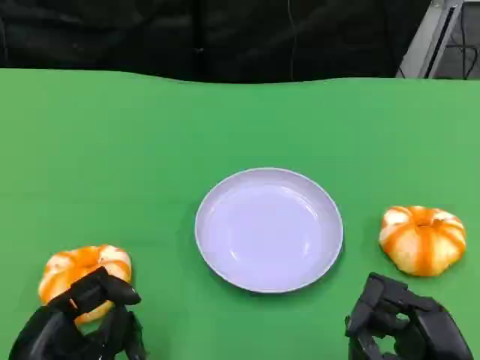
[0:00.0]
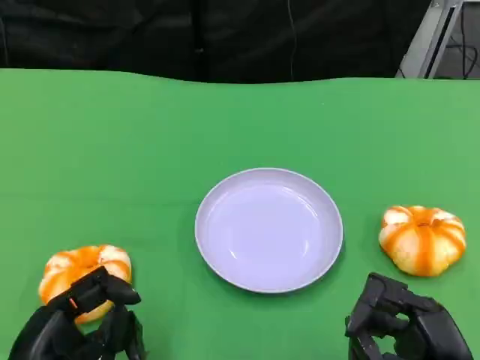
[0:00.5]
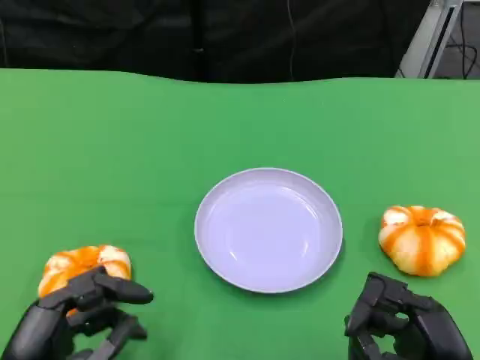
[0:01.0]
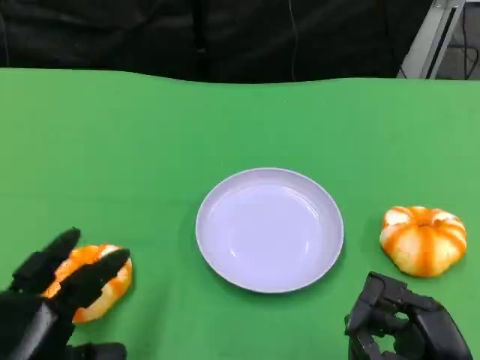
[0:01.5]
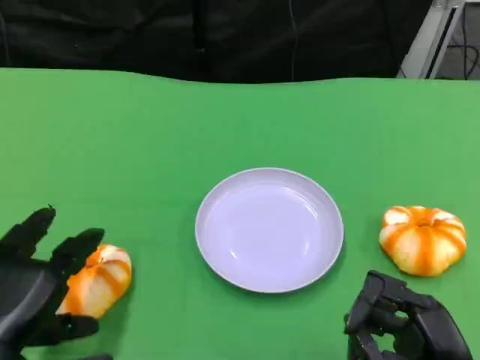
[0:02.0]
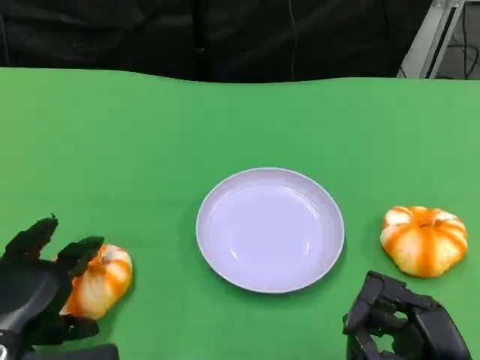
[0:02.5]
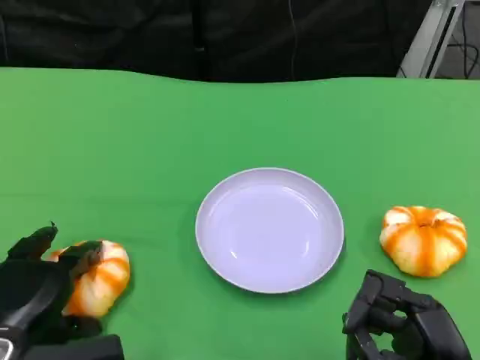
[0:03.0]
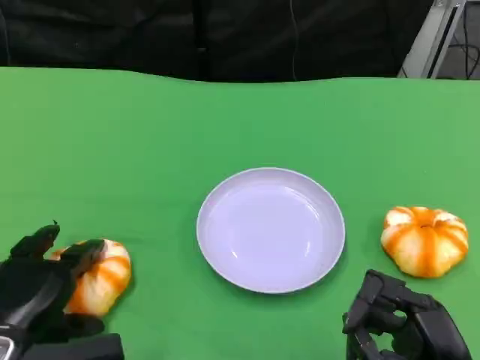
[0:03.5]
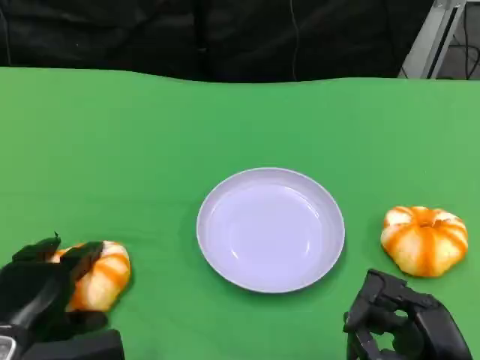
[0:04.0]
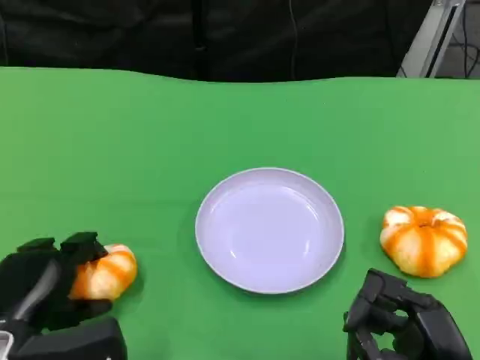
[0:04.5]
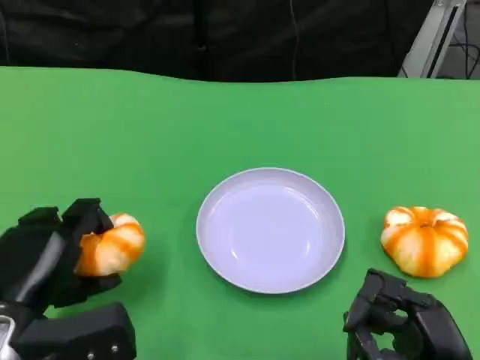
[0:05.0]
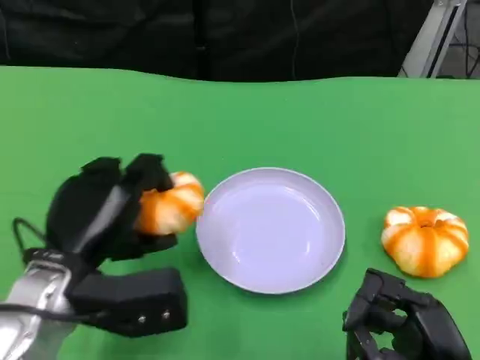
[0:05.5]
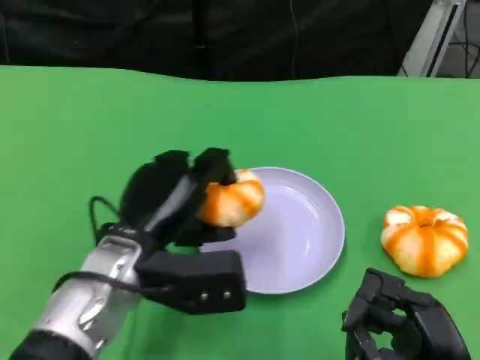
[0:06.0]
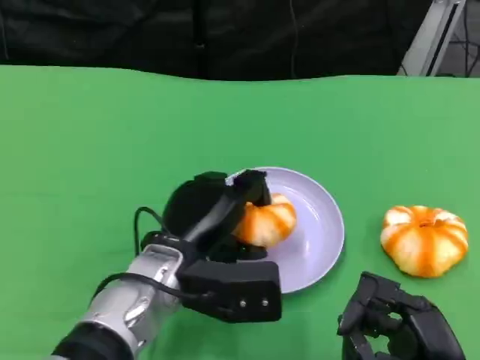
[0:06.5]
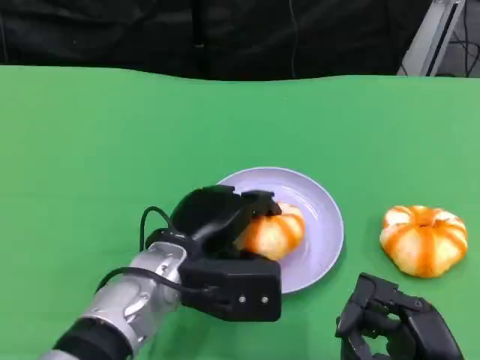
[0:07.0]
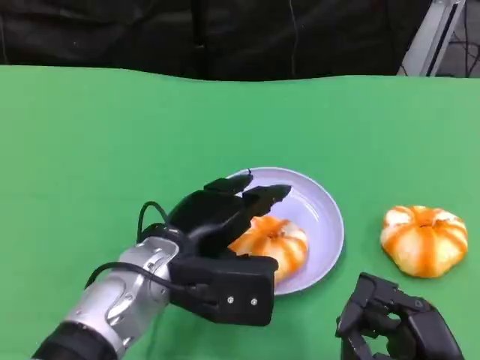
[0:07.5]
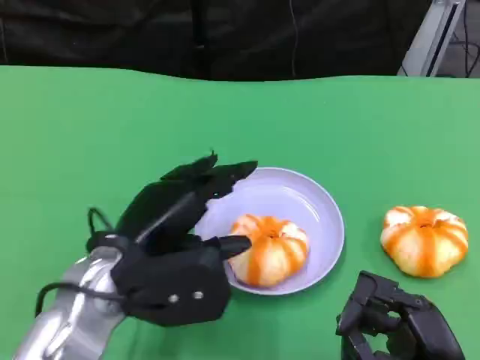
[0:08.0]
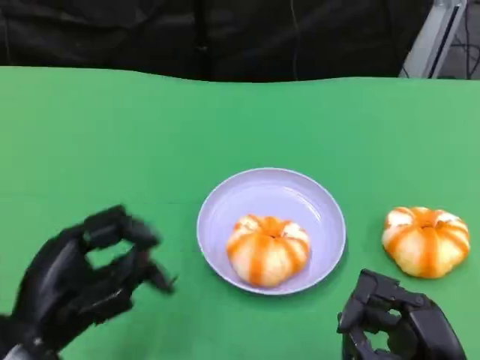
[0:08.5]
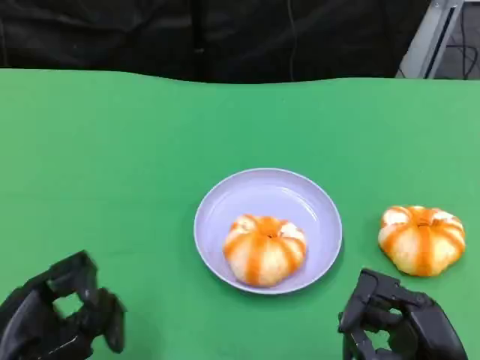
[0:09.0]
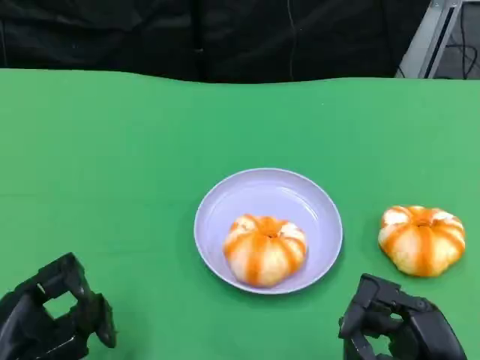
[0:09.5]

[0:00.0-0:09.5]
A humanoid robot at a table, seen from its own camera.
Task of the whole recording: Grasp the bread from the table and place it into the plate.
0:02.0 to 0:04.0: The hands make only small movements.
0:04.0 to 0:05.5: The left hand shifts roughly 10 cm upward and to the right.
0:05.5 to 0:07.5: The left hand heads to the right, covering about 10 cm.
0:07.5 to 0:09.5: The left hand goes roughly 20 cm to the left and backward.

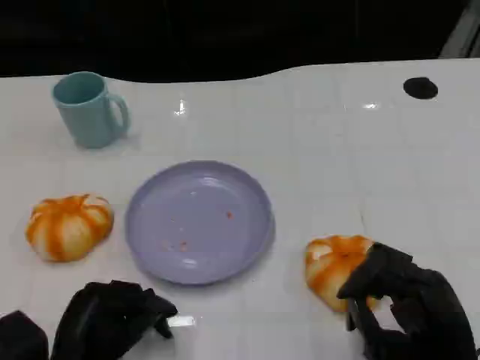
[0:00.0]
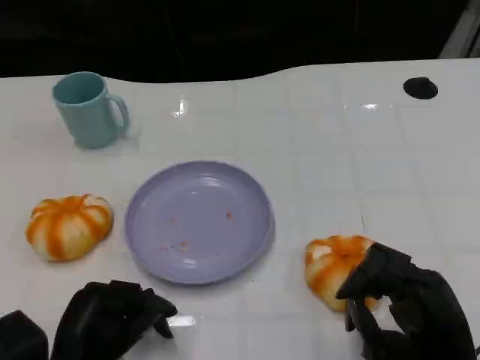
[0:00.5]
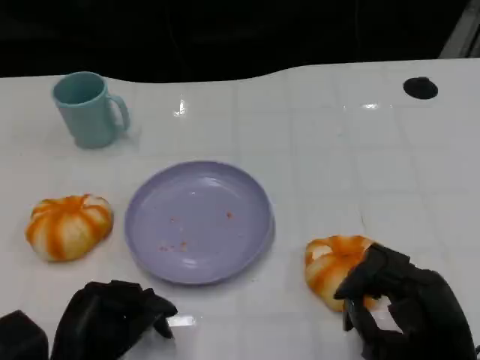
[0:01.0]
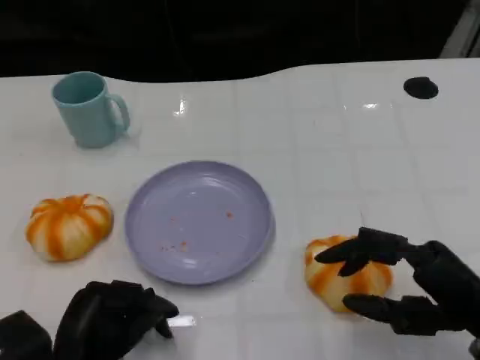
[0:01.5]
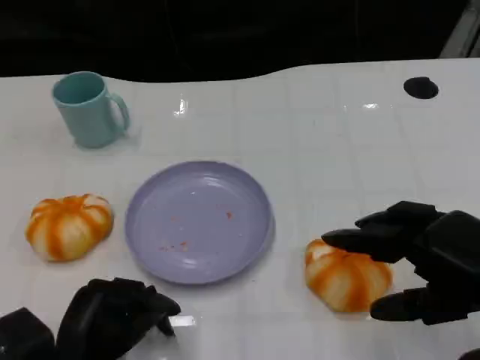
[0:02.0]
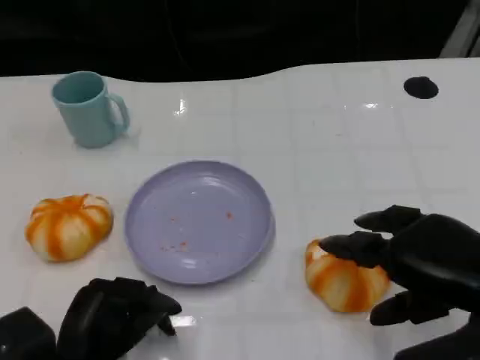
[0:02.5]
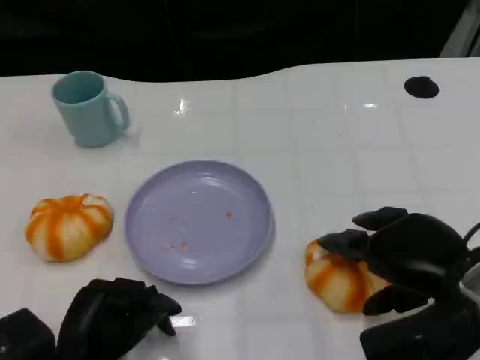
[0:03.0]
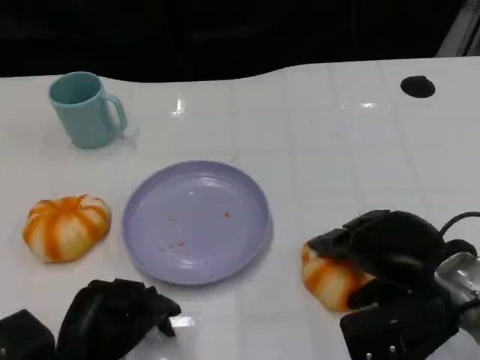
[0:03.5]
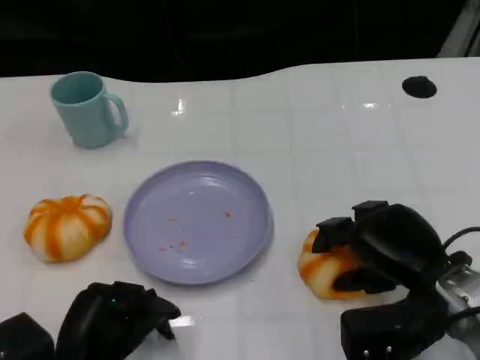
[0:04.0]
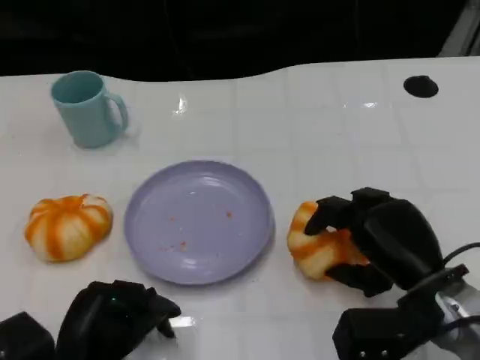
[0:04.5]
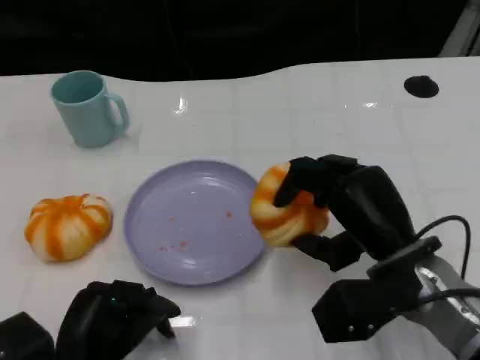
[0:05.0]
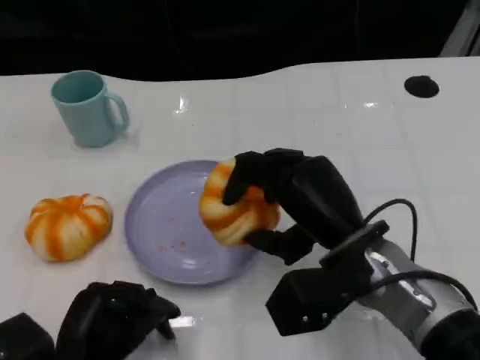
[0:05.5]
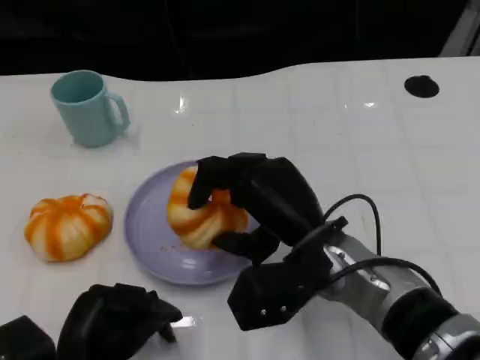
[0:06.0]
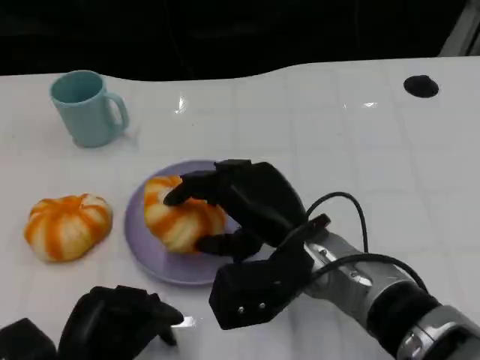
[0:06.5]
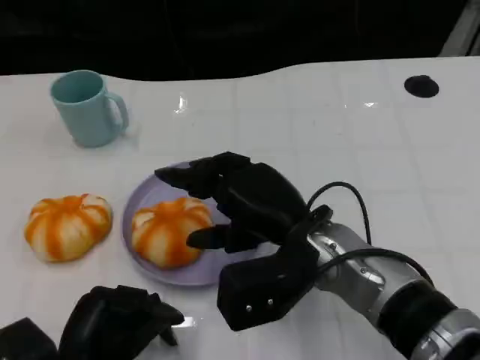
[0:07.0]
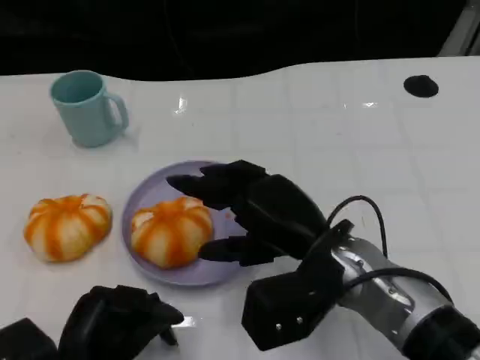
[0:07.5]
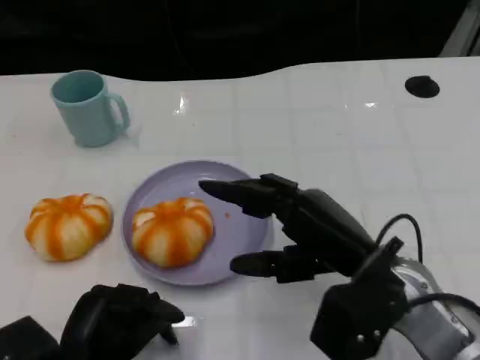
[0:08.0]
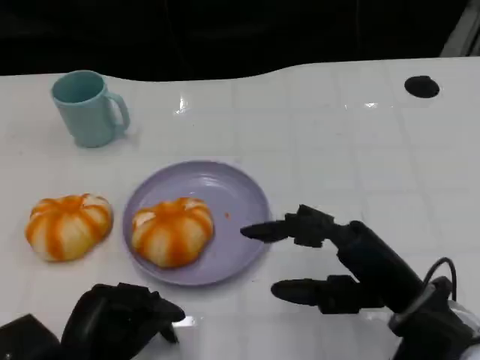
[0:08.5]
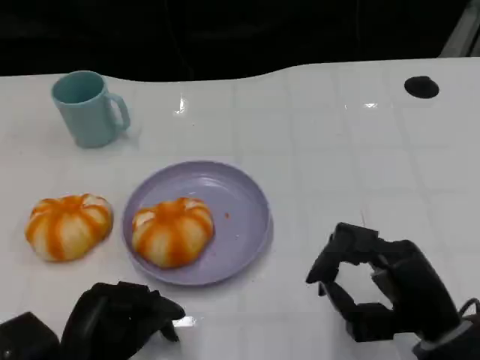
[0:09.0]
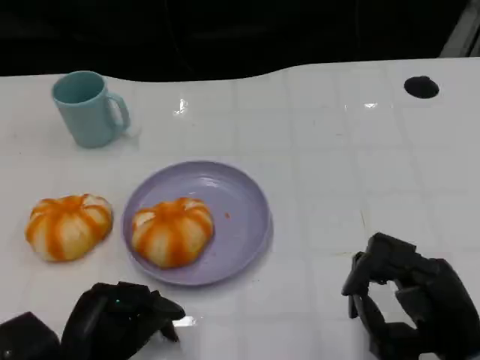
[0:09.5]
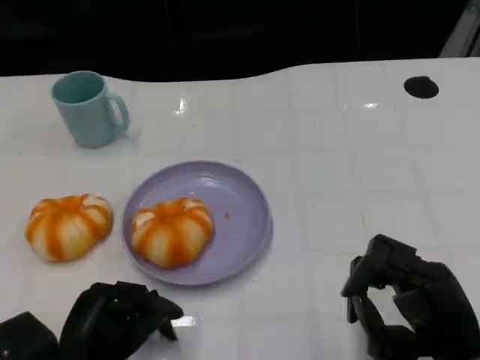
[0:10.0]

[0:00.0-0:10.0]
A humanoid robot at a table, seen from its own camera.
Task of the whole recording: Grasp the bread from the table and place it into the plate.
0:00.0 to 0:02.0: The right hand shifts approximately 10 cm upward.
0:02.0 to 0:04.0: The right hand shifts about 10 cm downward, forward and to the left.
0:04.0 to 0:06.0: The right hand is displaced to the left by approximately 15 cm.
0:06.0 to 0:08.0: The right hand goes some 5 cm to the right.
0:08.0 to 0:10.0: The right hand travels to the right, backward and downward by approximately 10 cm.

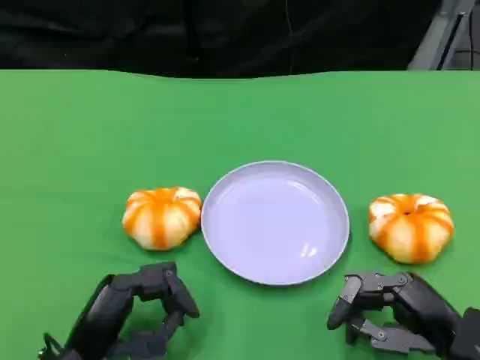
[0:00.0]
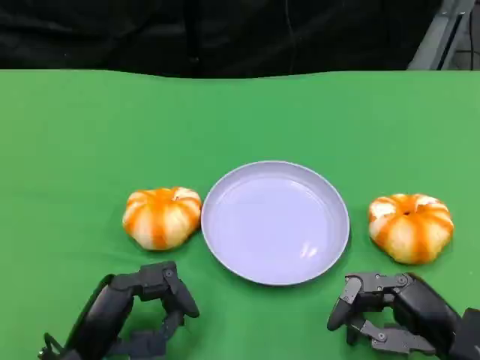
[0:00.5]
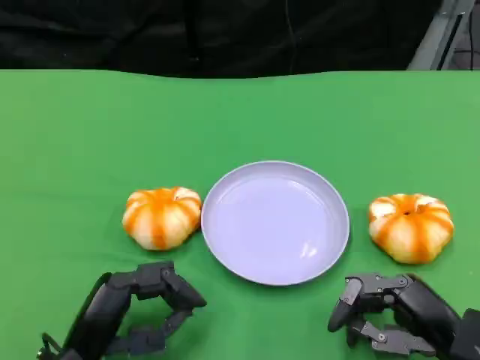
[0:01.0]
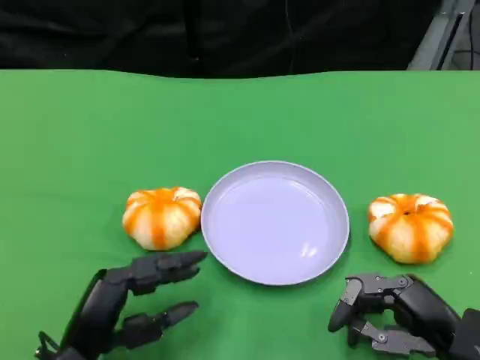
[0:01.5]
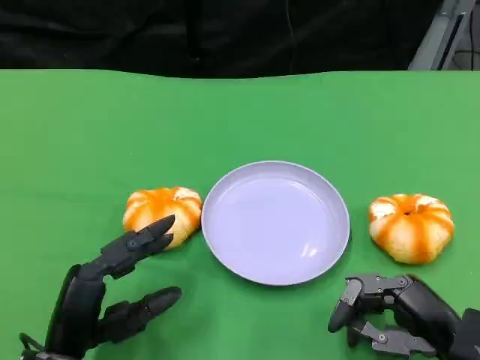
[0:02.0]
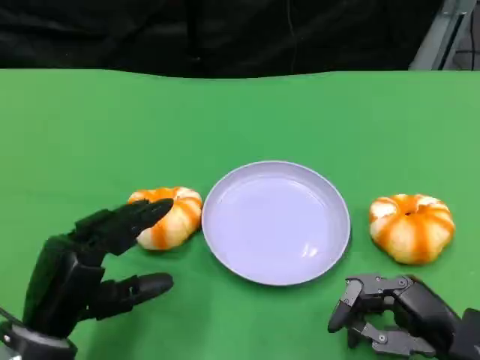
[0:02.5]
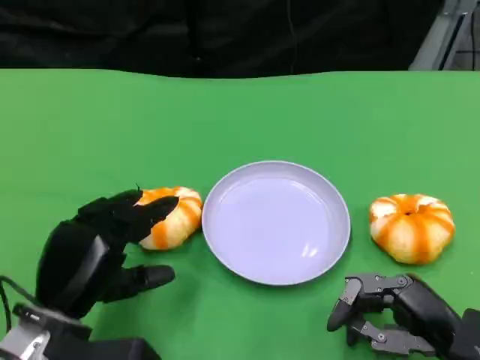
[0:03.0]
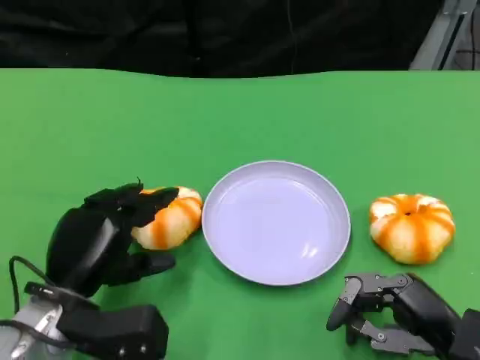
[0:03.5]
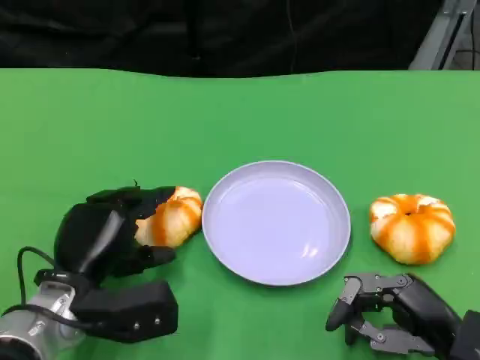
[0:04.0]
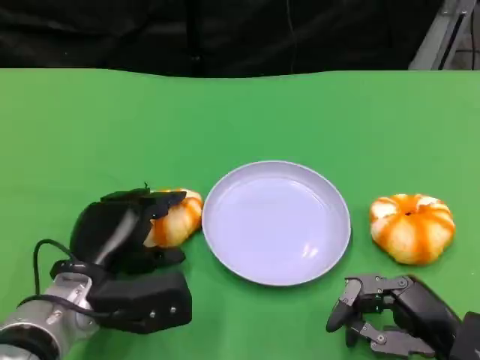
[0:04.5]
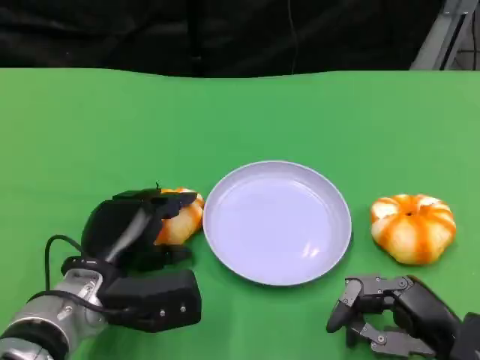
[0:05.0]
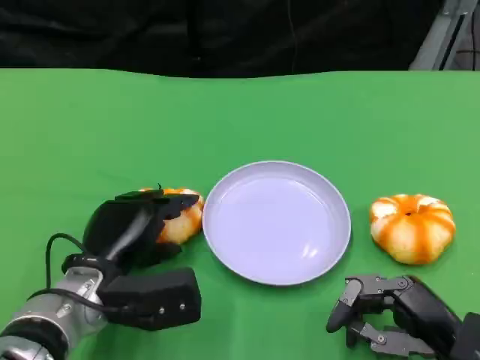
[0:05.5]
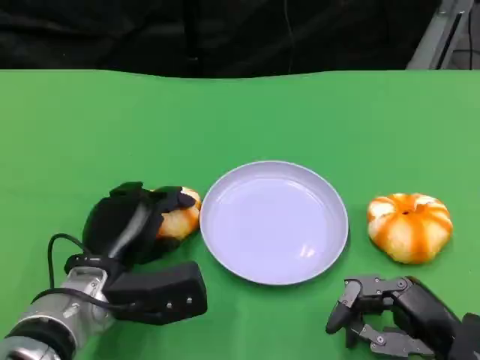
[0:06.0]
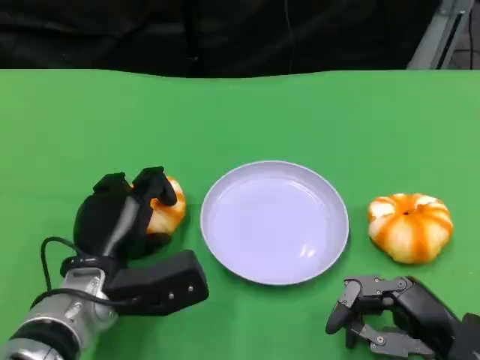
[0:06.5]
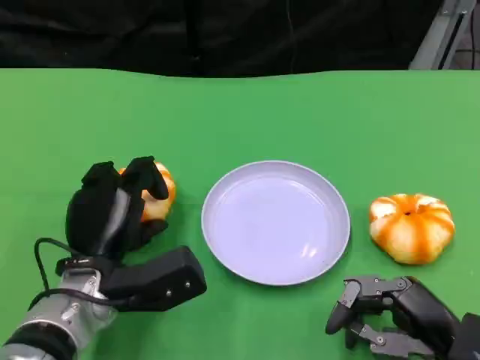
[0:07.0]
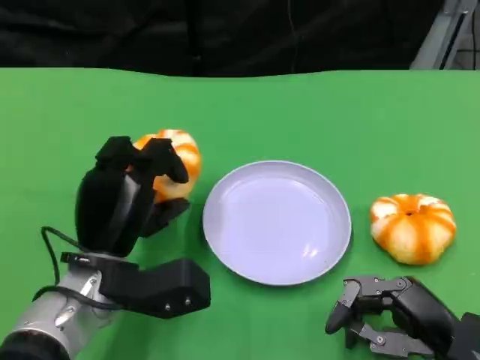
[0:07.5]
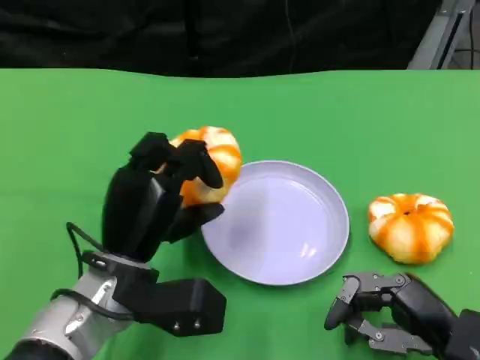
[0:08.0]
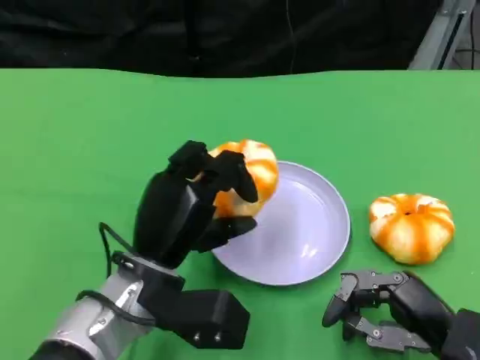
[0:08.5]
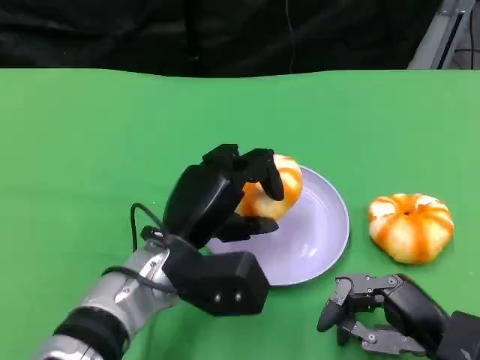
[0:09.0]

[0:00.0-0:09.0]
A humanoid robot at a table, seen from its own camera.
Task of the whole recording: Grasp the bread from the table and place it into the plate.
0:00.0 to 0:02.0: The hands stay close to where they were, moving slightly.
0:02.0 to 0:04.5: The left hand travels forward by roughly 10 cm.
0:04.5 to 0:07.0: The hands stay close to where they were, moving slightly.
0:07.0 to 0:09.0: The left hand goes about 5 cm to the right.
